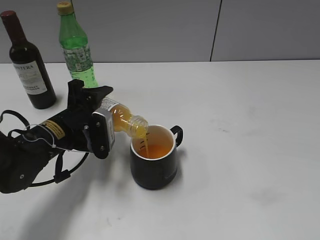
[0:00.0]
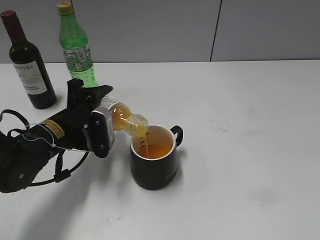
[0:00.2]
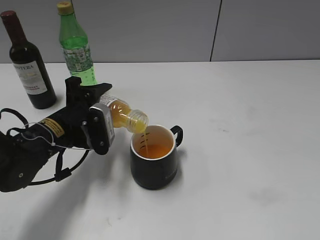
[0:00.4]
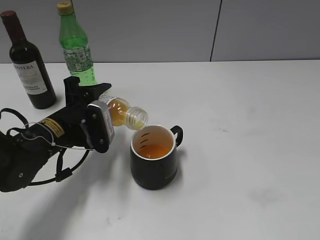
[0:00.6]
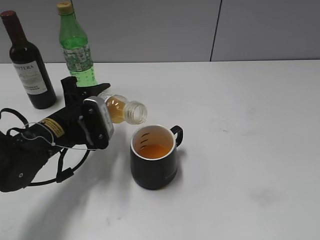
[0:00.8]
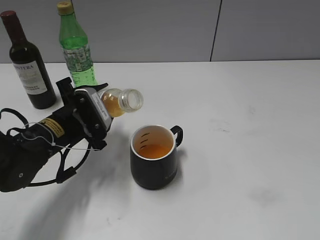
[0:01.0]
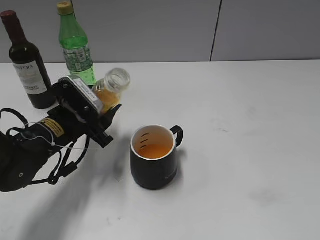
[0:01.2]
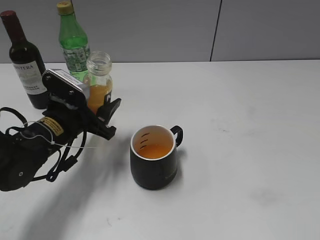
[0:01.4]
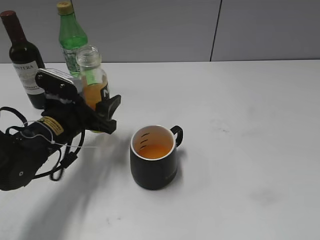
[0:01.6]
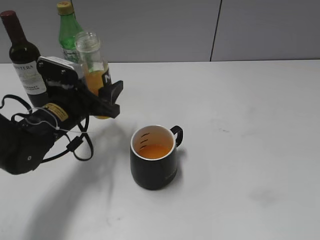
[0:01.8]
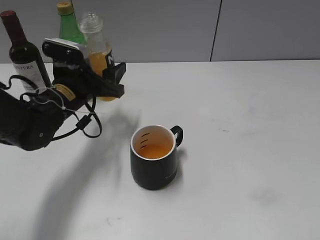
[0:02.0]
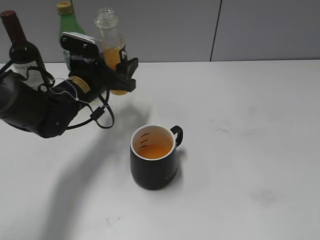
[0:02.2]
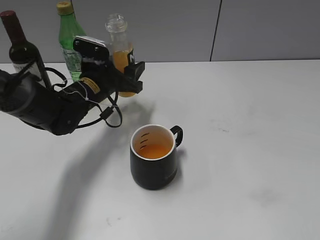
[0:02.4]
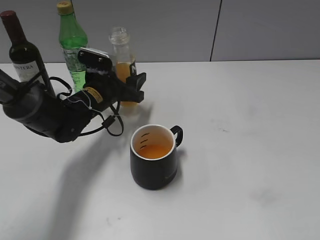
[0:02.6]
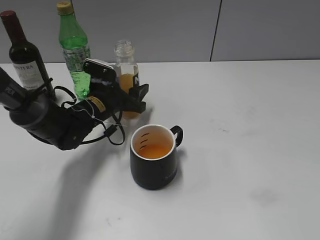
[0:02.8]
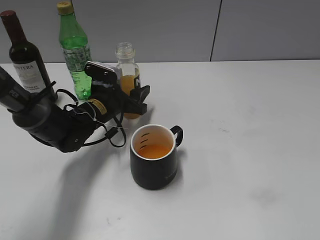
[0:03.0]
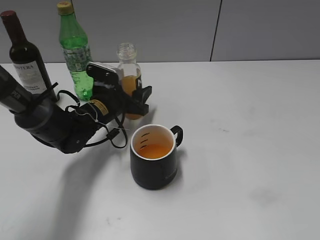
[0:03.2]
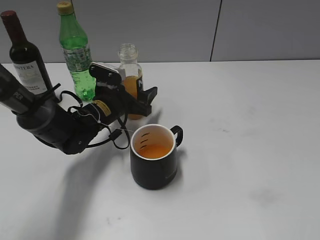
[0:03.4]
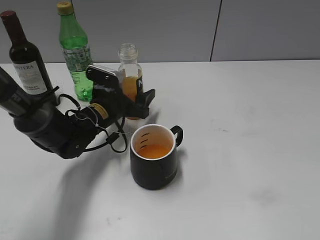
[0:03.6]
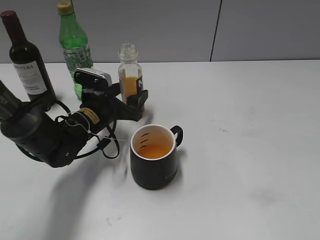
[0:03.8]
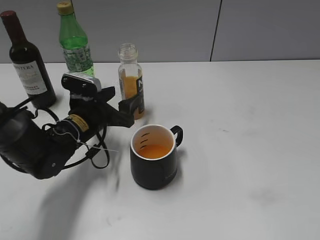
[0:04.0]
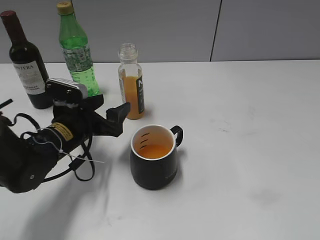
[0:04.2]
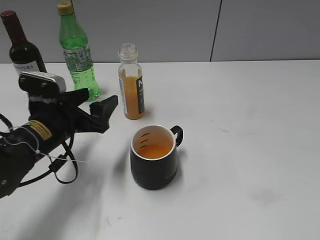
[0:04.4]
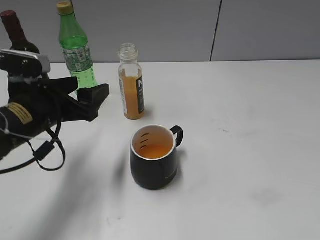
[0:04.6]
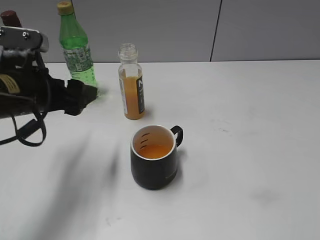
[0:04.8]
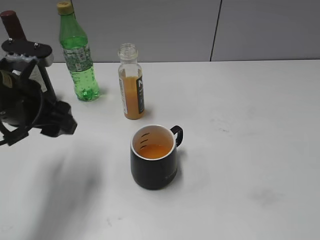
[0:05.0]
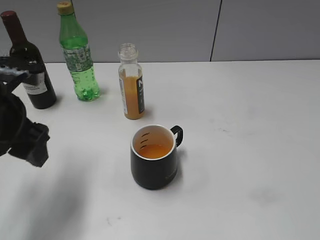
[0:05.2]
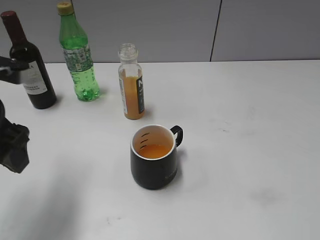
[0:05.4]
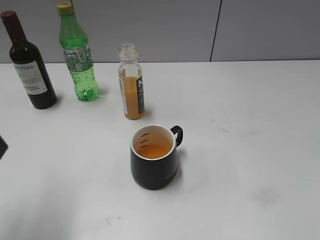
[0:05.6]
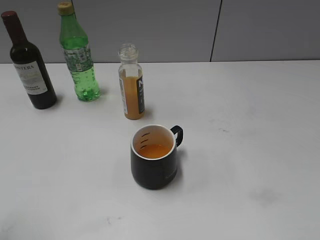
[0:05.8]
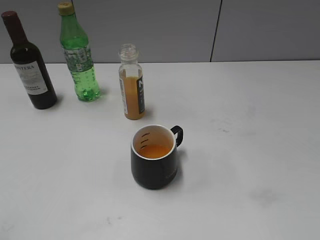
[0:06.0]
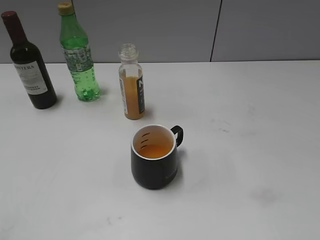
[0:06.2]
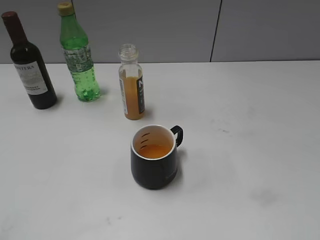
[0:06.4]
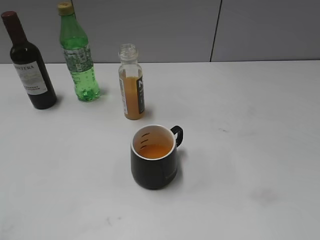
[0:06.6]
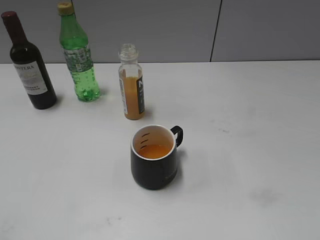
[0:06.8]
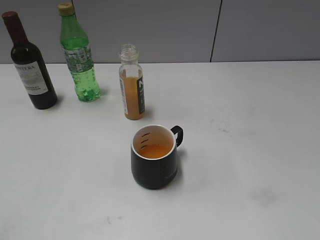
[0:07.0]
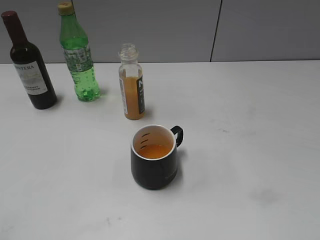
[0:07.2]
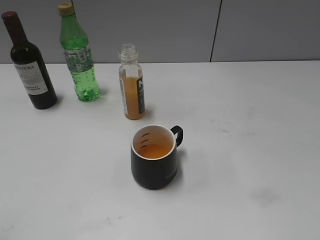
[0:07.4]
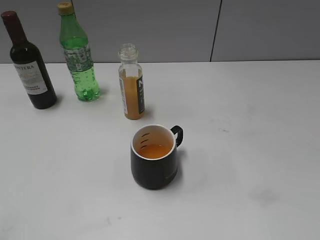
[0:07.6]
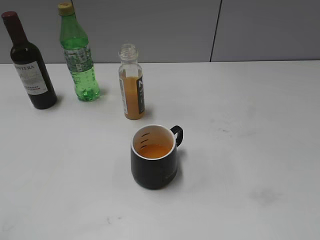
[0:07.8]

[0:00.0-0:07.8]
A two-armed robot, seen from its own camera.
Step, 0:00.8 to 0:03.6: Place the orange juice bottle on the table with left gripper.
0:01.6 to 0:03.2: The left gripper travels forward and to the right by about 10 cm.
0:03.2 to 0:04.6: The left gripper is displaced backward, upward and to the left by about 15 cm, and opens.
0:04.6 to 0:06.2: The left gripper is displaced backward, to the left and upward by about 30 cm.

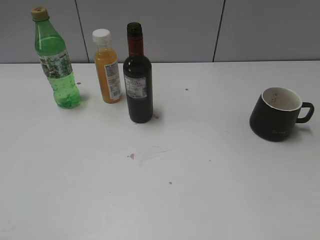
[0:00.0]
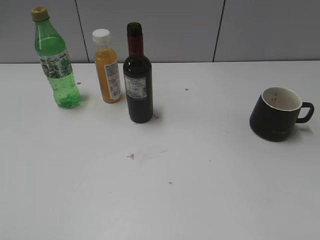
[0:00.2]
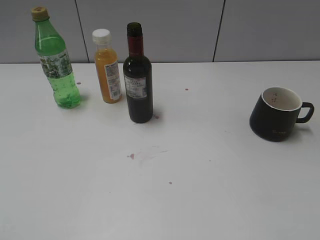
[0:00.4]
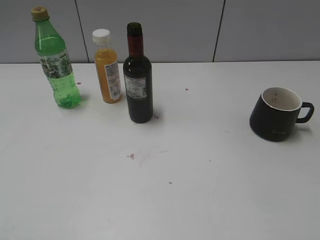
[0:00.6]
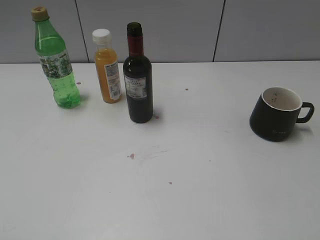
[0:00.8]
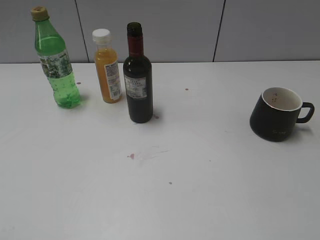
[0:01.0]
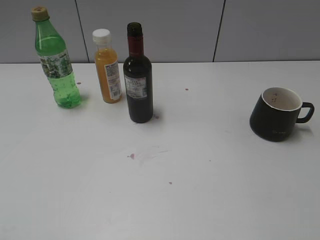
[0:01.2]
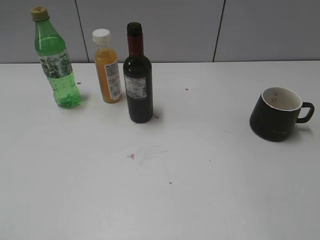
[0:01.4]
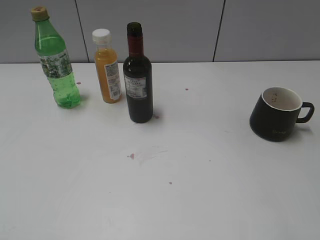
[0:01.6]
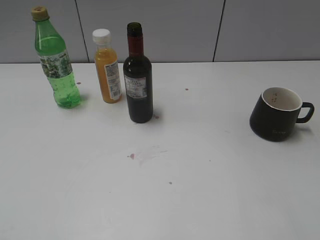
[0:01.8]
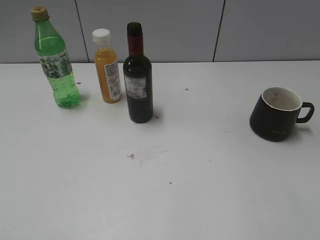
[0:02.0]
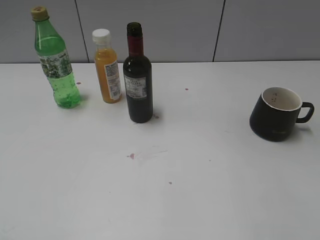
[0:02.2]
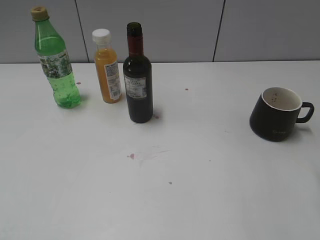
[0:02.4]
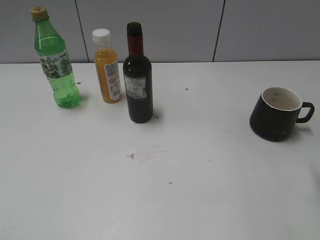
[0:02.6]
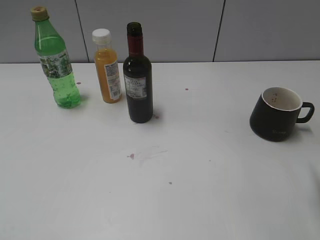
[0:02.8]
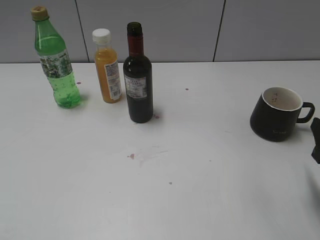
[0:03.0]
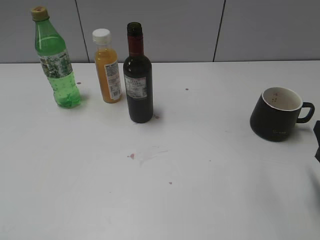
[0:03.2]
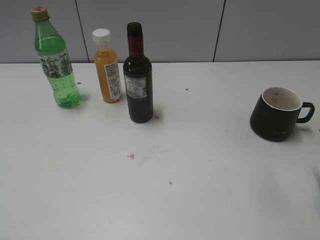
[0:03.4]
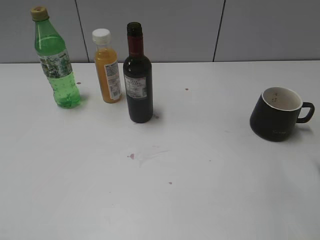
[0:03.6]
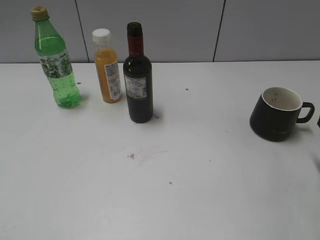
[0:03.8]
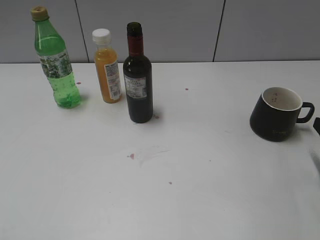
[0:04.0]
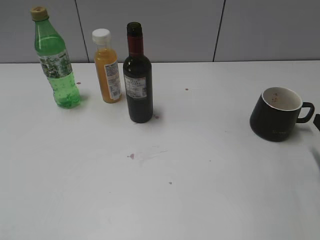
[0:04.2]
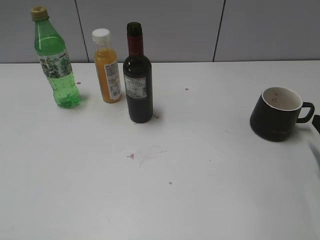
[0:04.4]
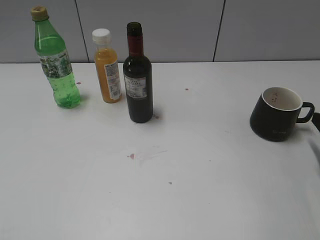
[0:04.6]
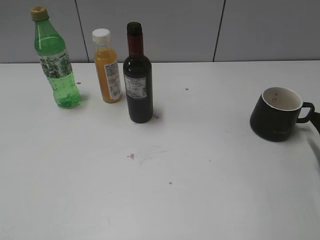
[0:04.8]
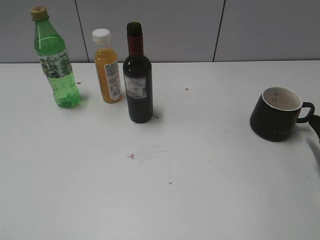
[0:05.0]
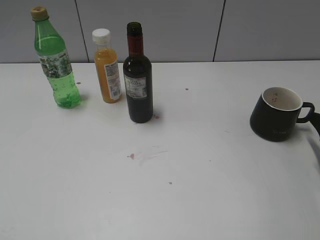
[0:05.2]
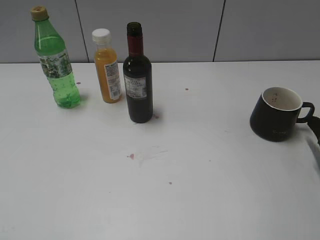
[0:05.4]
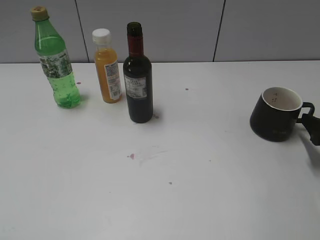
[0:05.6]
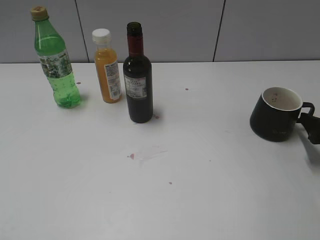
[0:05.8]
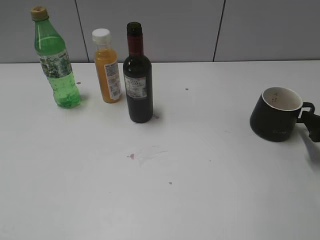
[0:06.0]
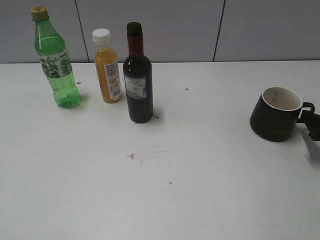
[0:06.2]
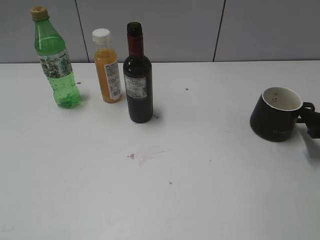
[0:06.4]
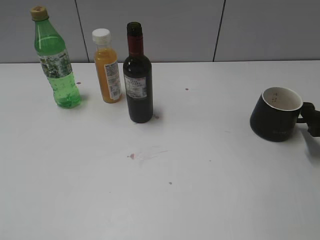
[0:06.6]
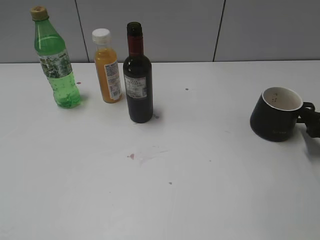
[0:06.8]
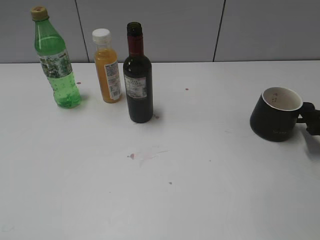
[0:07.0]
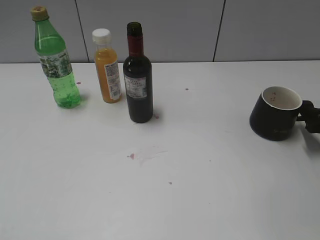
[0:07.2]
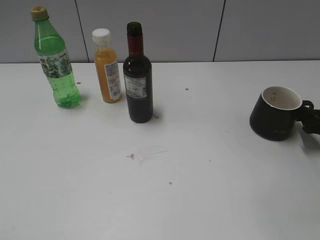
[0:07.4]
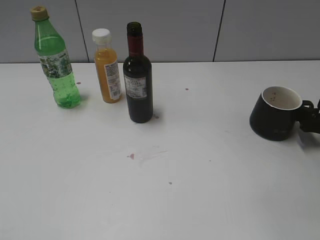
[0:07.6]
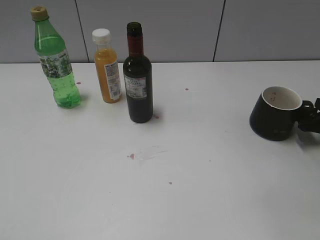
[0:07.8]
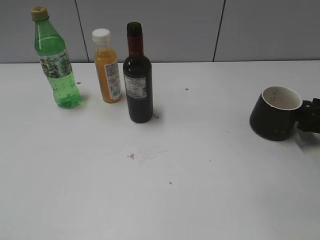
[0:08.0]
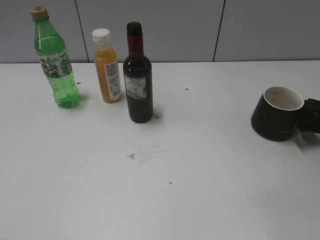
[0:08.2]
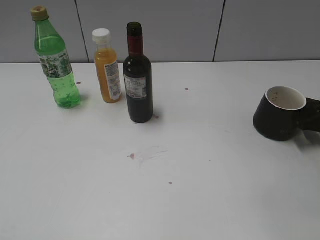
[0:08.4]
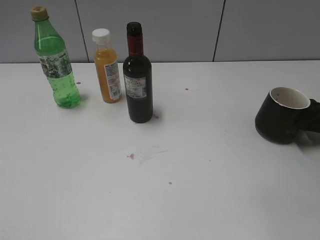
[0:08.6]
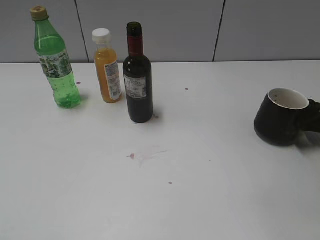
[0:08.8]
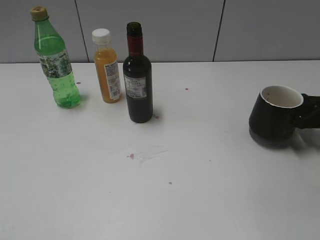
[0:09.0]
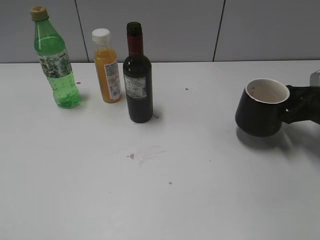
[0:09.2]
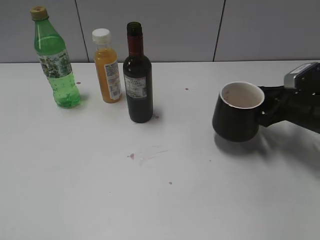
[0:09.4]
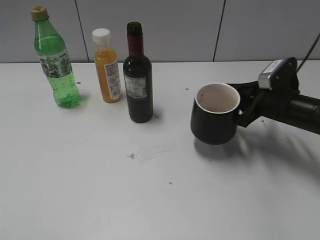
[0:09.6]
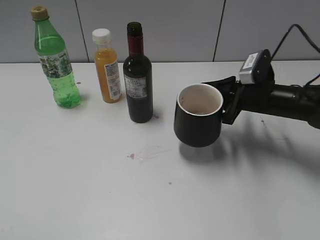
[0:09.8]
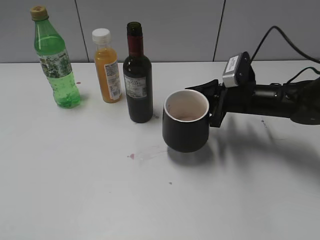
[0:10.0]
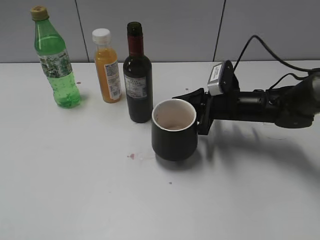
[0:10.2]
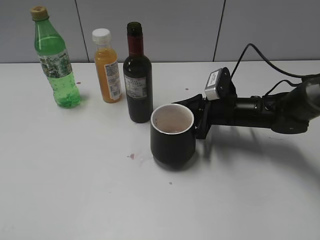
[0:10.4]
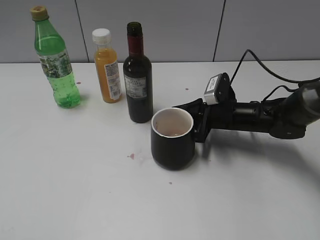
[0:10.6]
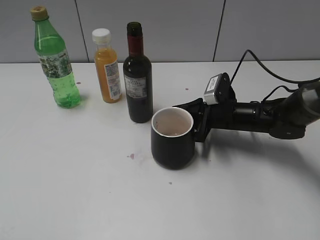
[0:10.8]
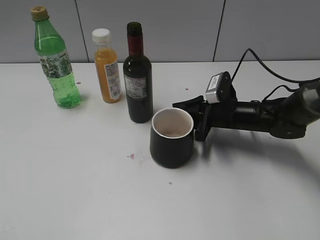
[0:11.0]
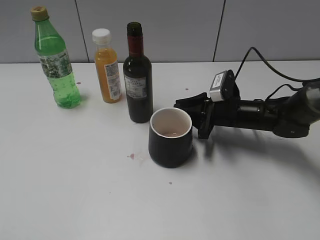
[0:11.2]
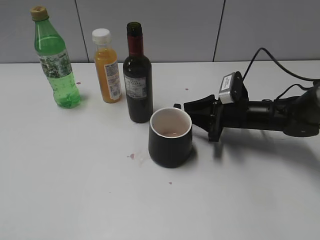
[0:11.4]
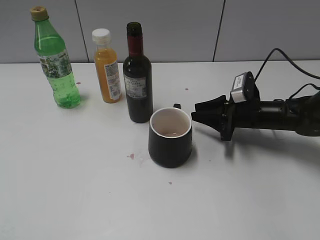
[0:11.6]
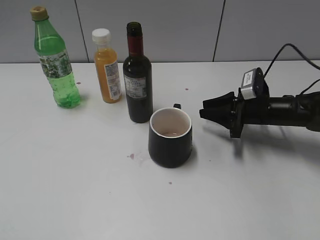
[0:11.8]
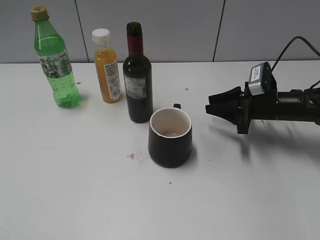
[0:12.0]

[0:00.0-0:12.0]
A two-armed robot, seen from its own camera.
Step, 0:08.8 to 0:11.2: Place the black cup in the center of view with right gripper.
0:01.6 to 0:03.0: The right gripper shifts roughly 20 cm downward and forward.
0:03.0 to 0:04.4: The right gripper shifts approximately 10 cm to the right and forward.
0:06.0 to 0:07.6: The right gripper shifts by some 5 cm.
0:07.6 to 0:09.0: The right gripper closes.
0:09.0 to 0:10.4: The right gripper travels to the left by approximately 20 cm.
0:10.4 to 0:12.0: The right gripper goes roughly 10 cm to the right.

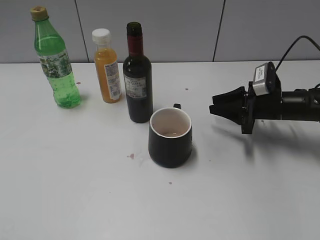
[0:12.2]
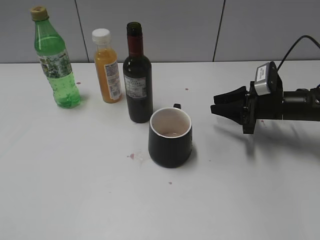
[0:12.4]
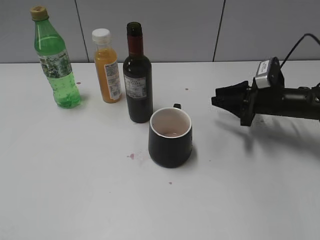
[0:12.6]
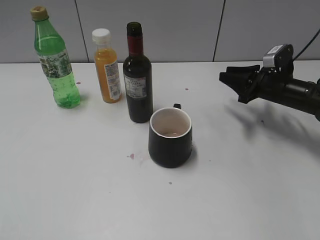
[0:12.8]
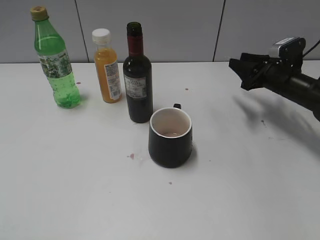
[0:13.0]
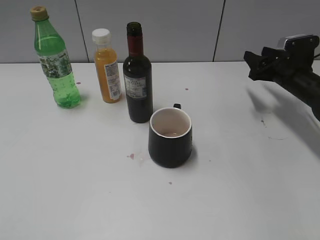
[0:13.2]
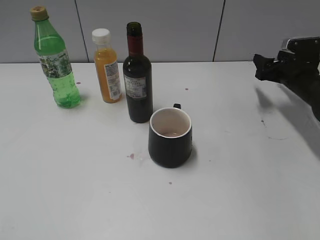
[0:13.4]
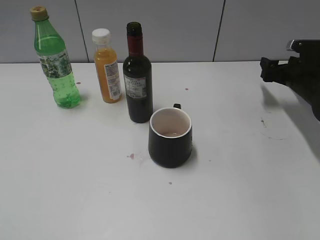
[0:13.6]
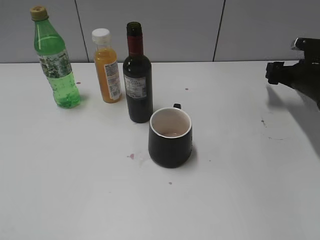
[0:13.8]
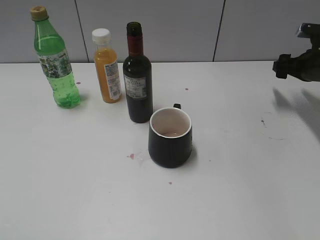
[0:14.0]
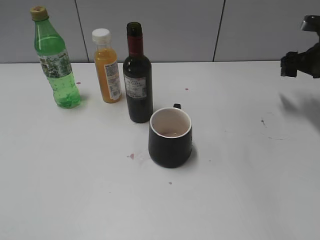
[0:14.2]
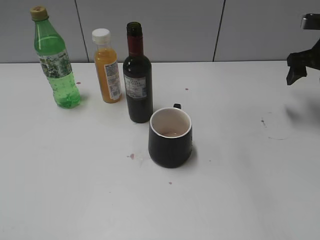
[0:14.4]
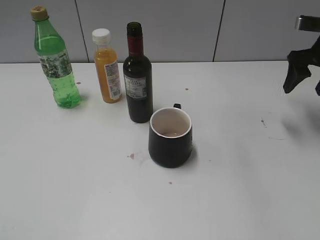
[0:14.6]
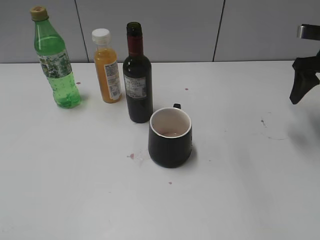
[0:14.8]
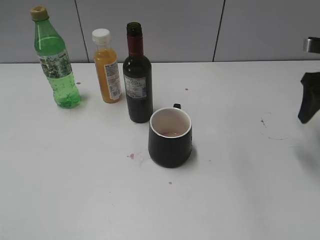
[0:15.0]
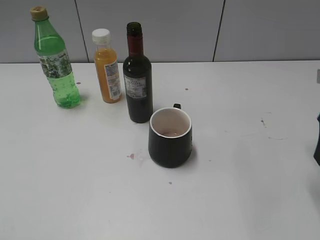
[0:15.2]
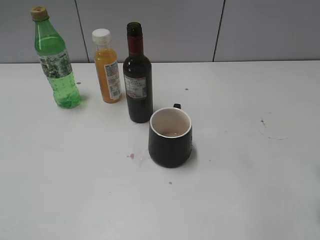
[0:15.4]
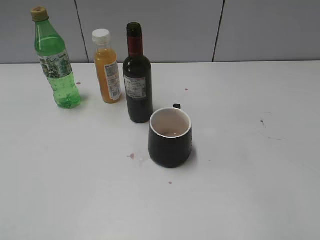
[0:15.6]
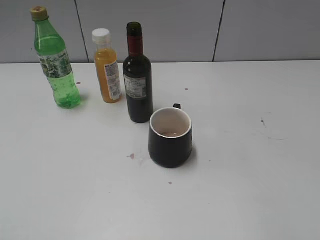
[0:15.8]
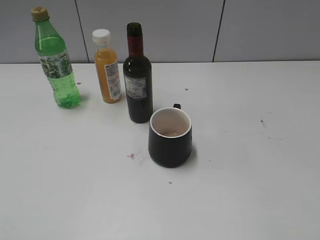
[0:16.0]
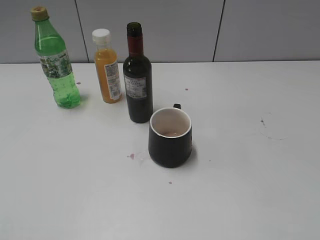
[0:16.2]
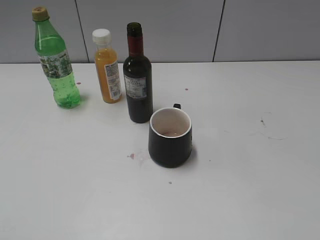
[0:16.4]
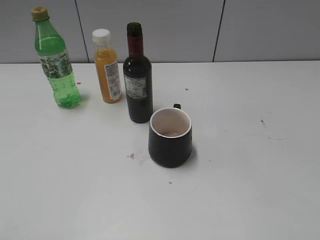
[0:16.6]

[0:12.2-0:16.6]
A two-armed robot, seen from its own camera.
0:12.2 to 0:13.6: The right gripper heads to the right and forward, covering some 10 cm, and opens up.
0:13.6 to 0:15.2: The right gripper travels backward and upward by approximately 20 cm.
